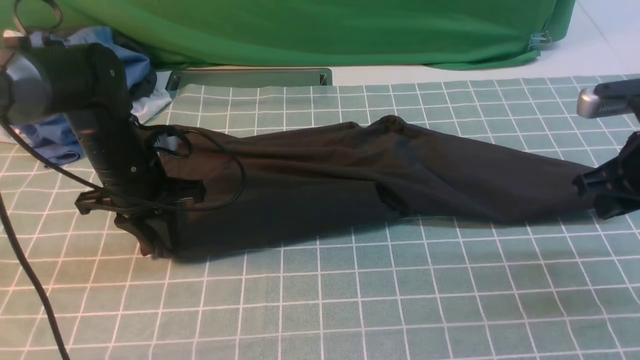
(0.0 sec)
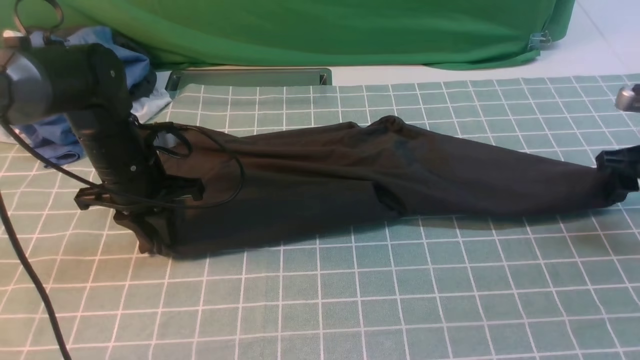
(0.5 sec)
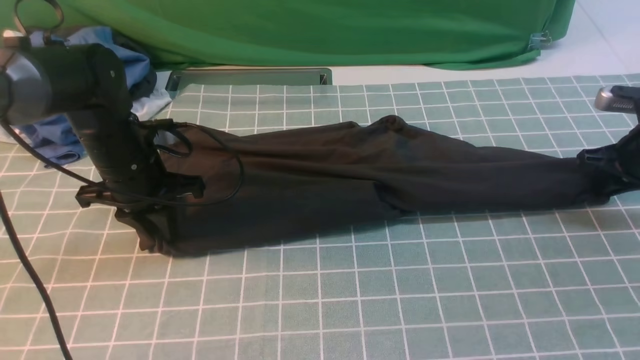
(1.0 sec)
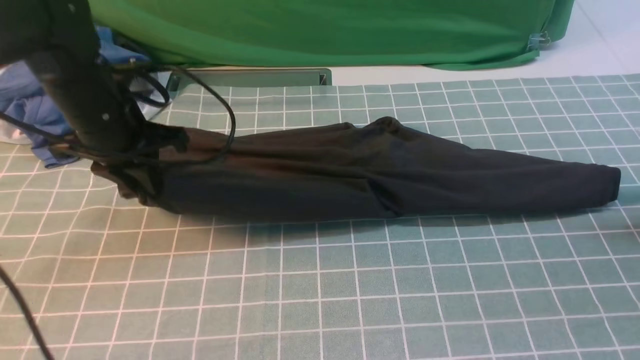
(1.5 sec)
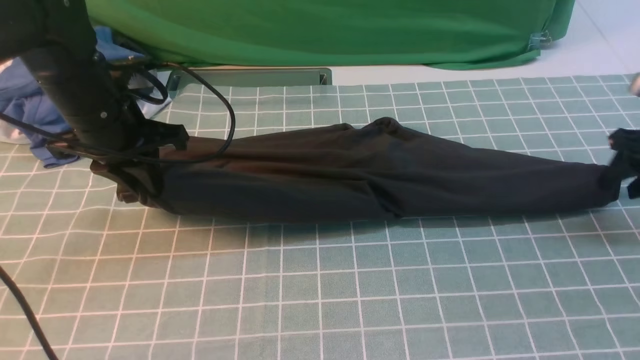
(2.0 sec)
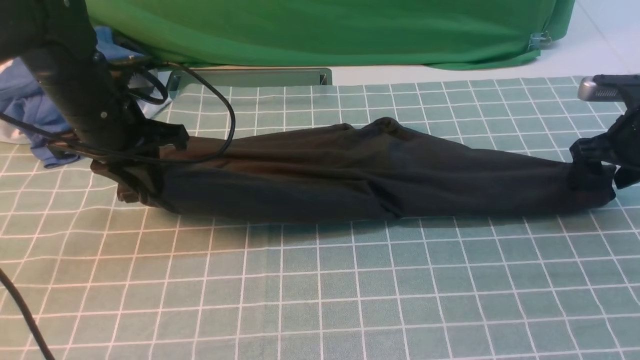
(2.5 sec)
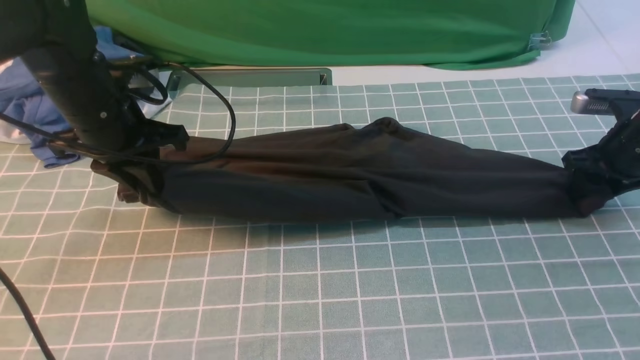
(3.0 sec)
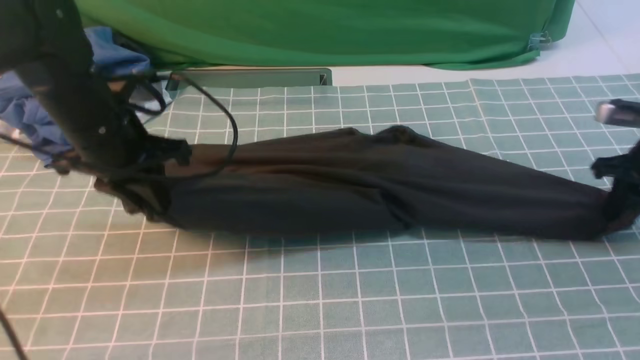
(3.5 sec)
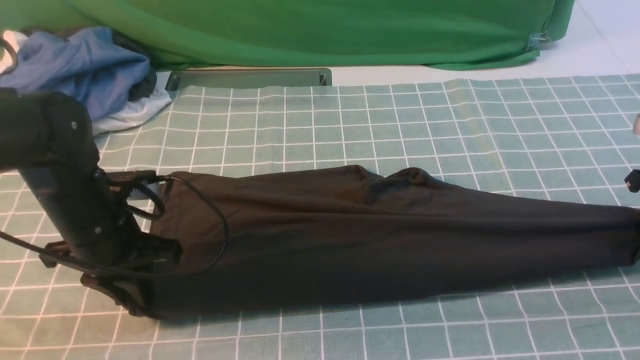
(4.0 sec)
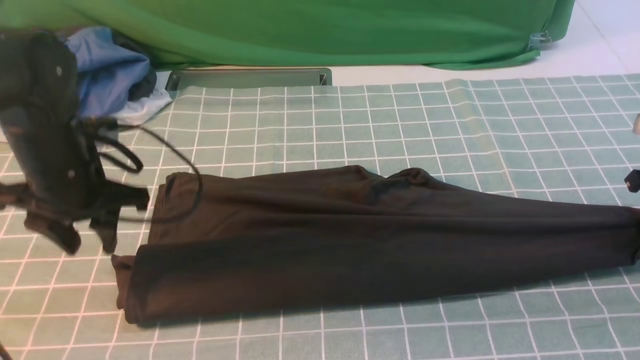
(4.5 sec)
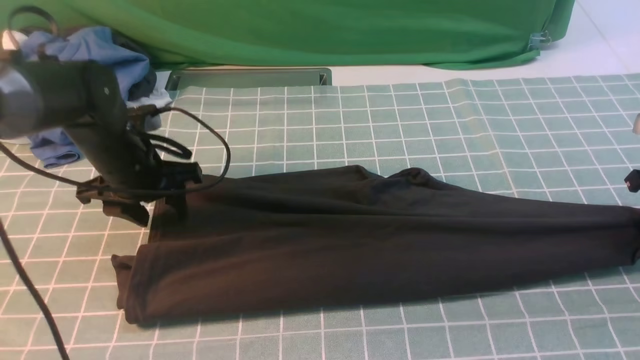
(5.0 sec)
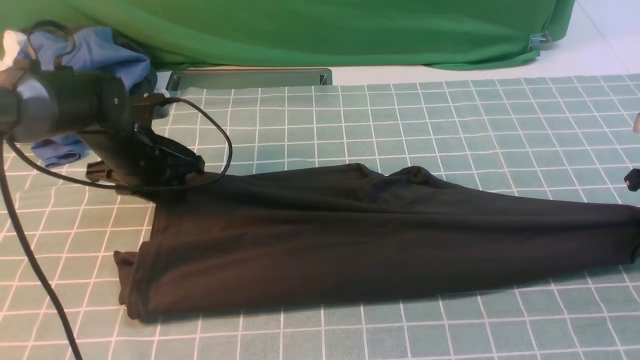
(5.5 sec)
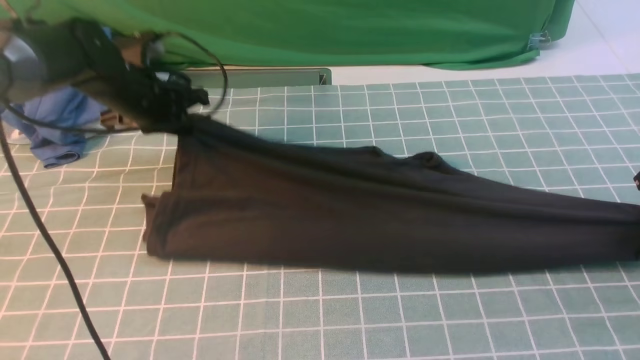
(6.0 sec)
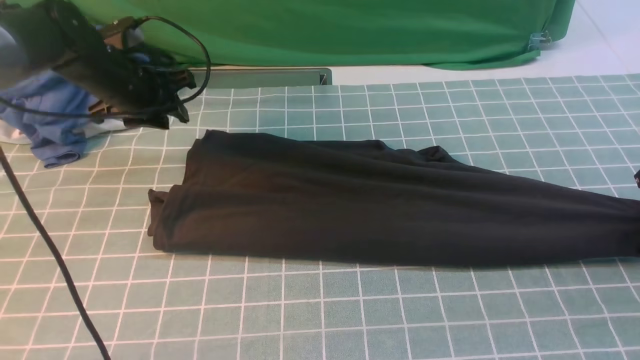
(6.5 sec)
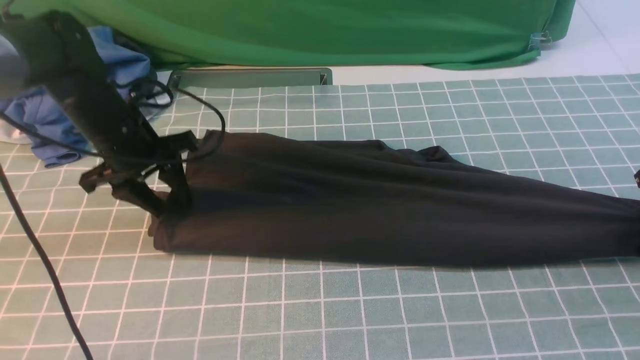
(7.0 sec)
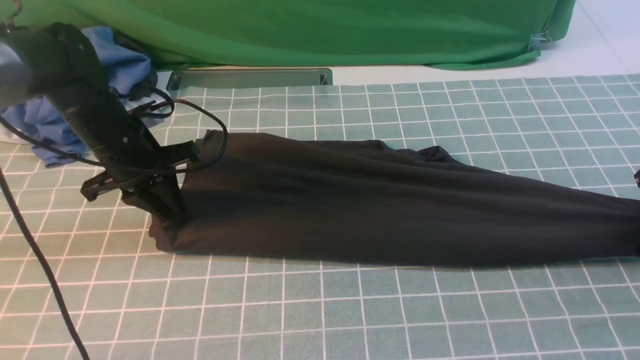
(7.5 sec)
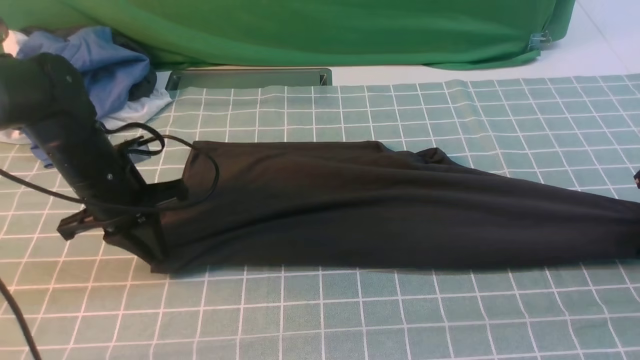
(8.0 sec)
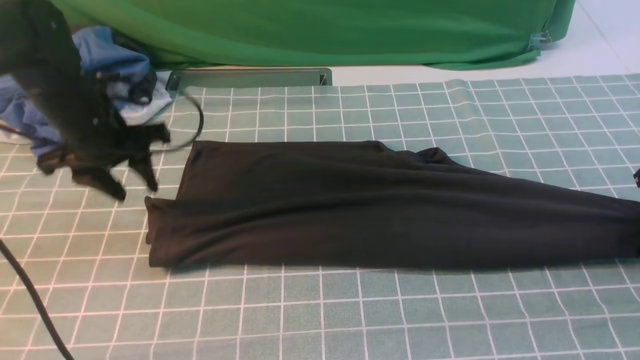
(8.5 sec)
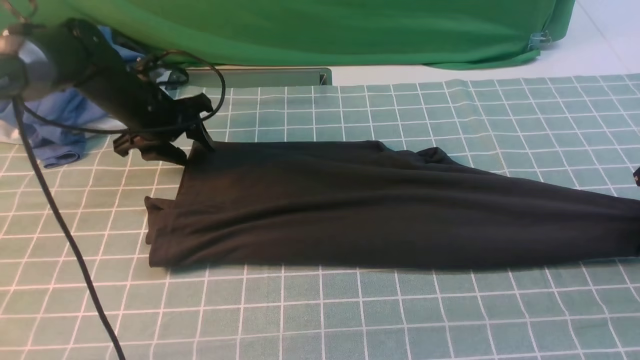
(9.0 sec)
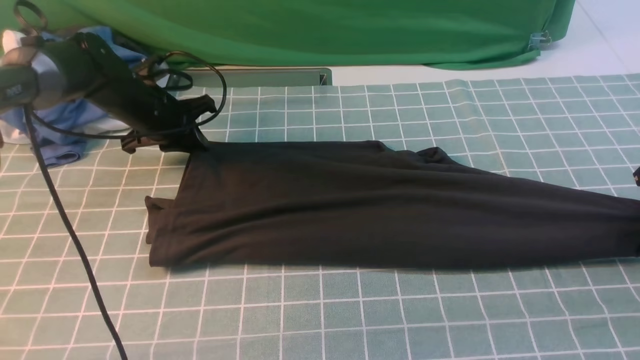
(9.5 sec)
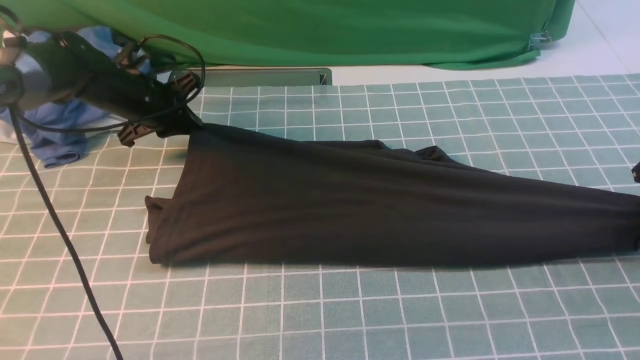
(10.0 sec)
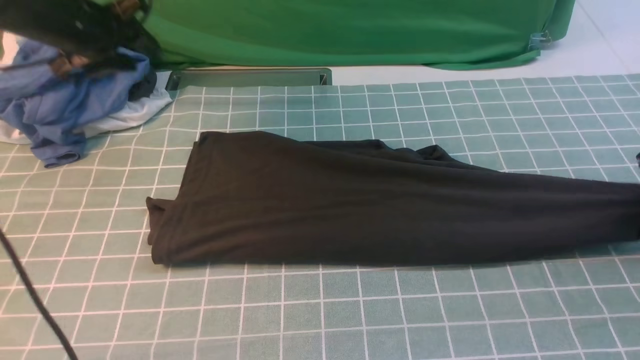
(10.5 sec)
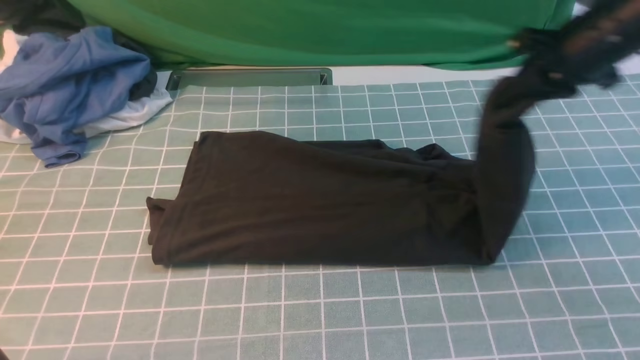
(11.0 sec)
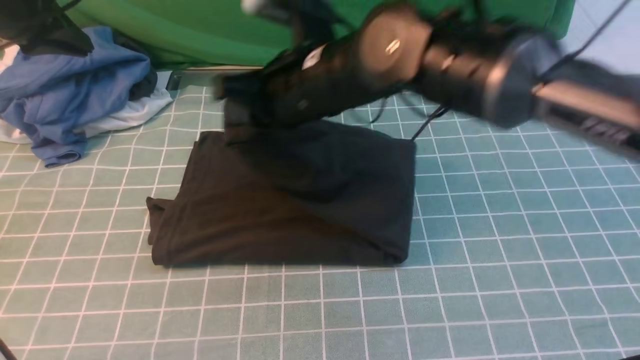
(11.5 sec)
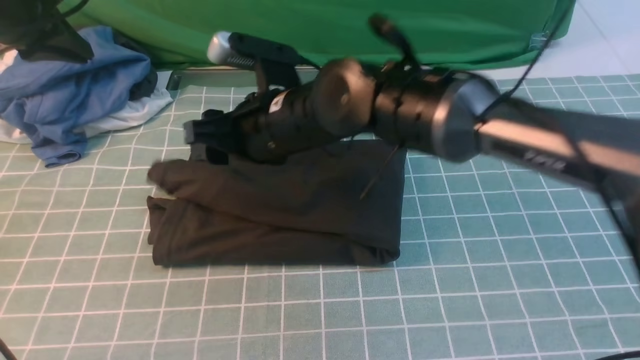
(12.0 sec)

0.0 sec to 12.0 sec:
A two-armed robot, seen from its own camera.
Step, 0.0 sec to 10.0 sec: use the right arm to clamp the right edge of the fabric.
Step, 10.5 sec to 12.0 sec: use the right arm to drag the right edge of the fabric to the left and folds it over the left edge.
0.0 sec to 2.0 sec: The right gripper goes about 15 cm to the right, forward and downward, and opens up; the left gripper heads upward, covering approximately 10 cm.
2.0 sec to 4.0 sec: The right gripper closes. Meanwhile the left gripper shifts about 10 cm backward and downward.
4.0 sec to 6.0 sec: The left gripper goes roughly 15 cm forward, and opens, then closes again.
6.0 sec to 8.0 sec: The left gripper heads backward, covering some 10 cm, and opens, then closes again.
8.0 sec to 10.0 sec: The left gripper moves forward, about 15 cm, and opens and closes again.
10.0 sec to 12.0 sec: The right gripper shifts roughly 40 cm to the left, and opens up. Meanwhile the left gripper moves upward, backward and to the left, approximately 20 cm, and opens, then closes again.

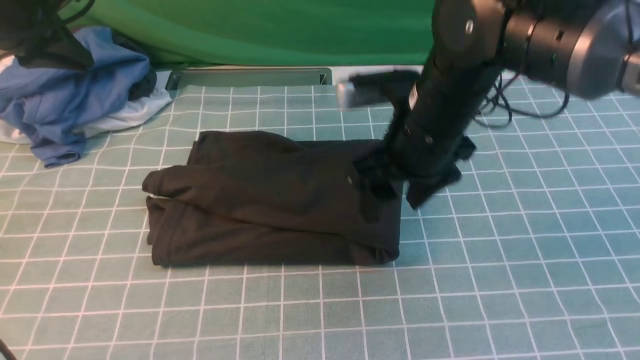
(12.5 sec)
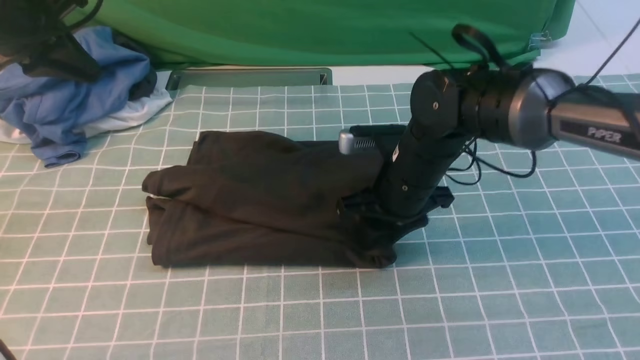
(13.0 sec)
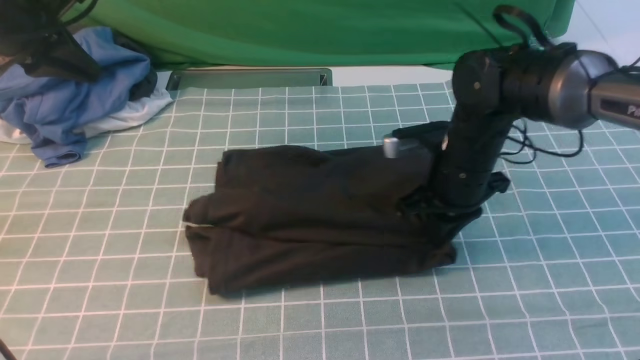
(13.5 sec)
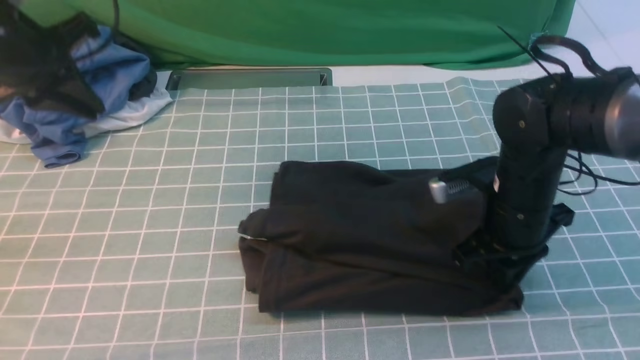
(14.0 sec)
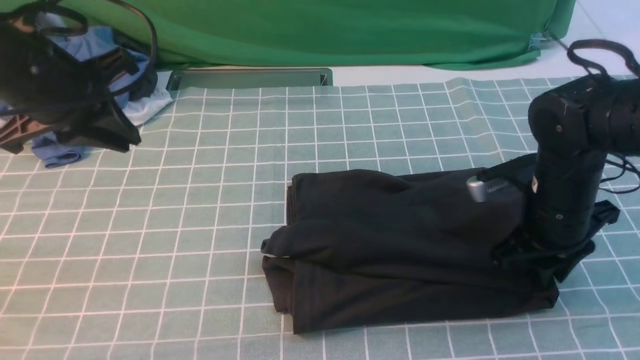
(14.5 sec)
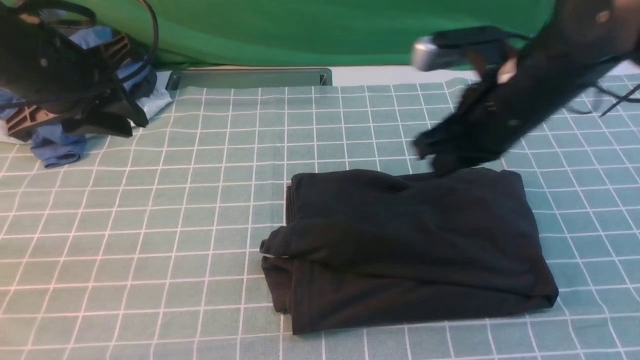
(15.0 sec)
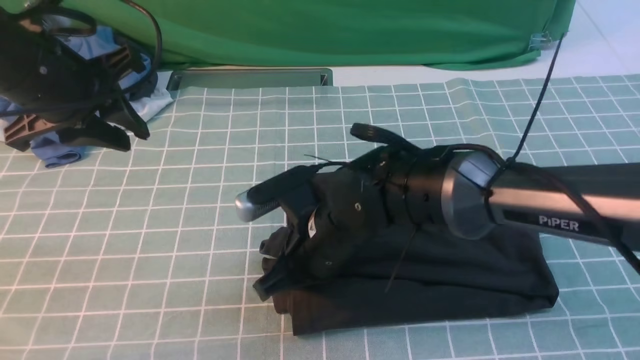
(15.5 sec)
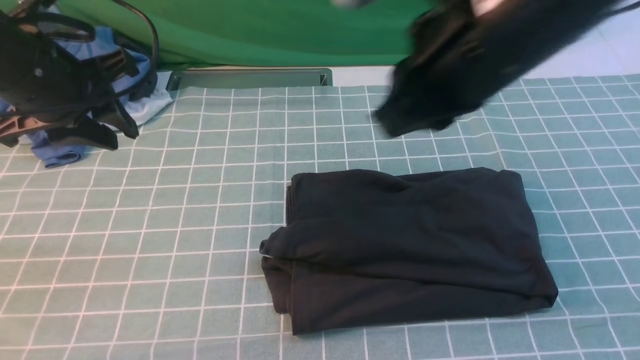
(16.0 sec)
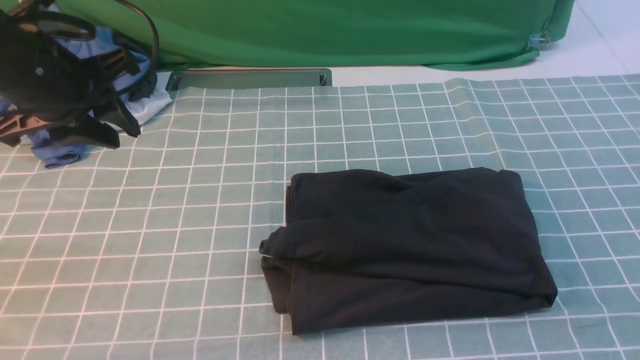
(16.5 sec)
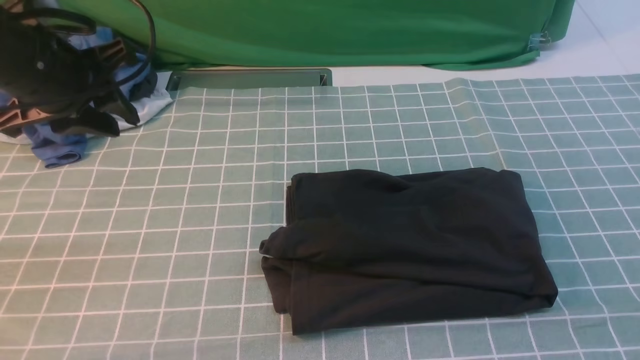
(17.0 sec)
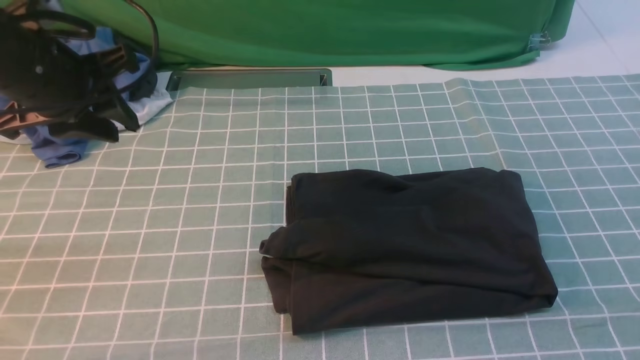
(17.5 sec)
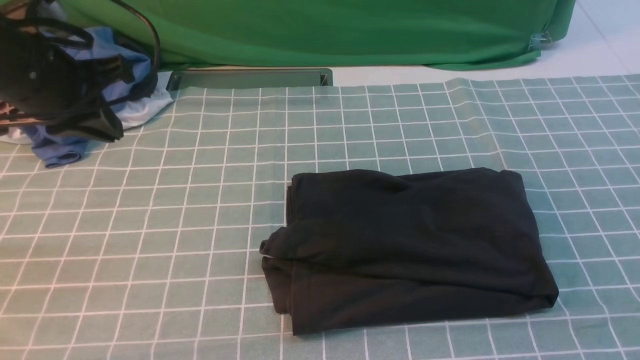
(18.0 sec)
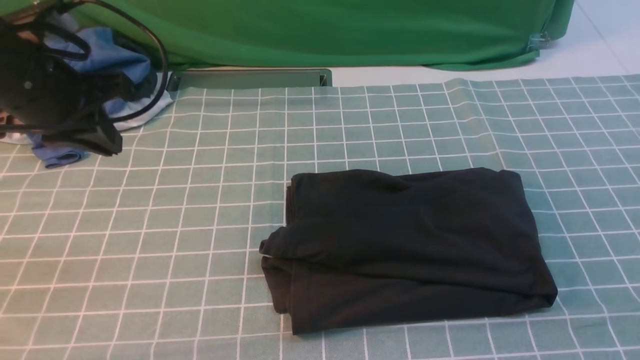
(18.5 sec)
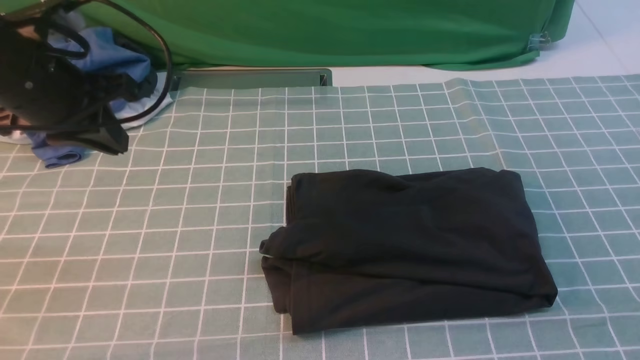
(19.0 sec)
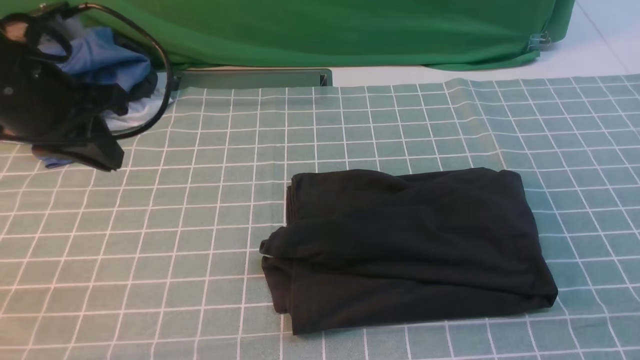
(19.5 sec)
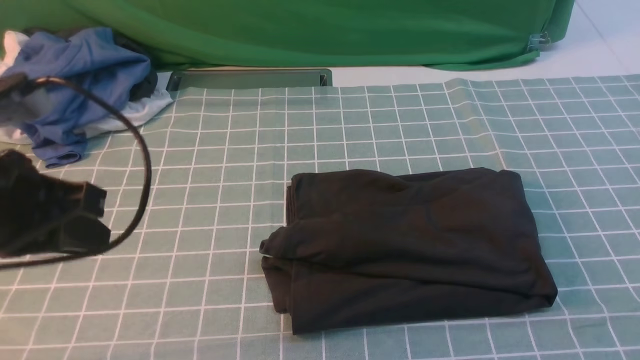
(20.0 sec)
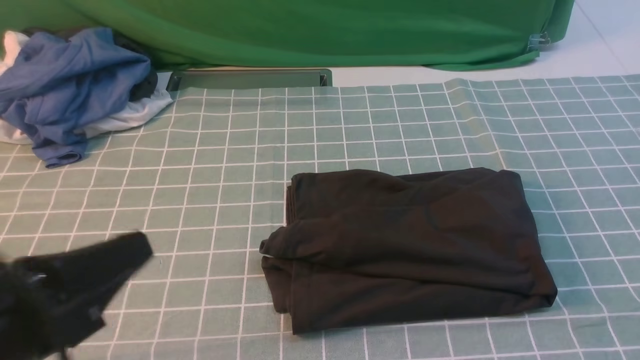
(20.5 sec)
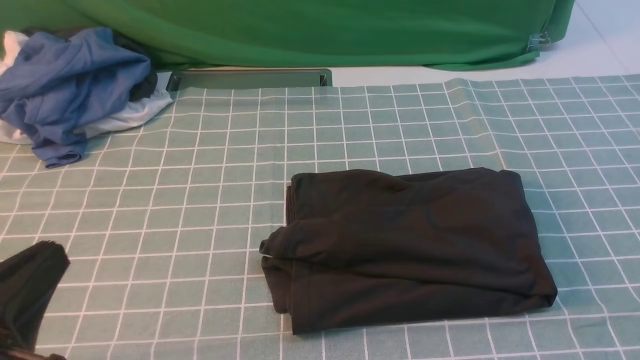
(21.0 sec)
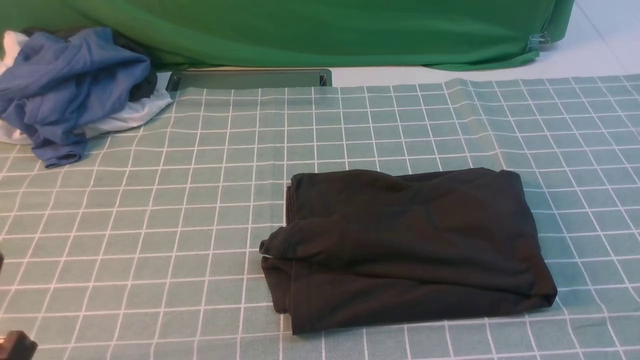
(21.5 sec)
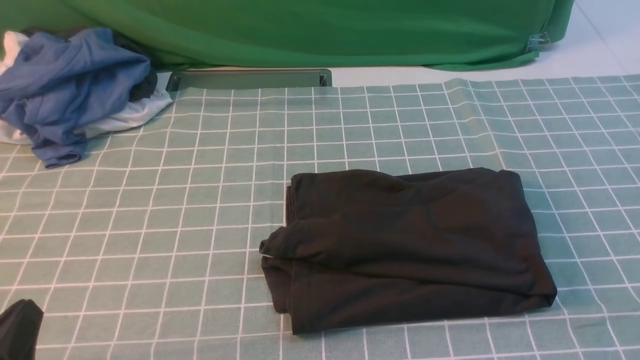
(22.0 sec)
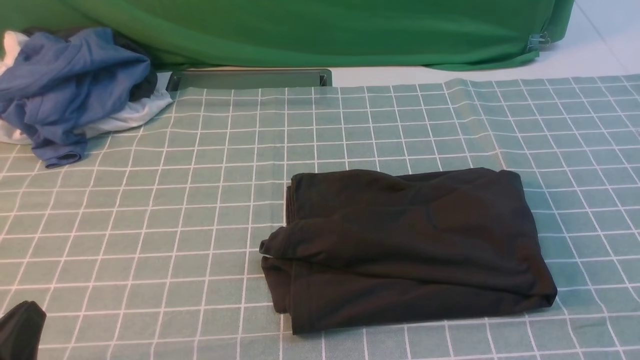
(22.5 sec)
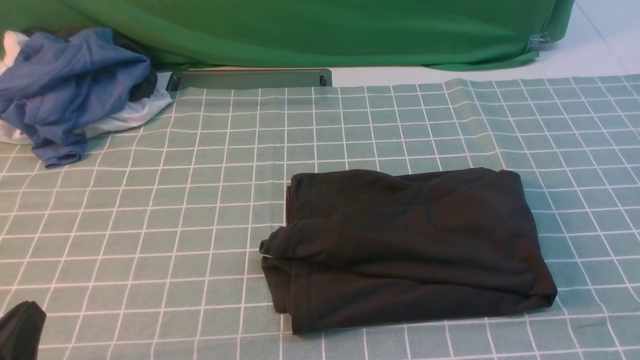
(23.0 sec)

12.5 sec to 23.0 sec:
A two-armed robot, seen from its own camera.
12.5 sec to 14.5 sec: The right gripper goes some 15 cm to the right and downward, and closes its fingers; the left gripper moves backward and to the right, roughly 10 cm.
14.5 sec to 16.5 sec: The right gripper travels backward and upward by about 30 cm, goes to the left and returns, approximately 20 cm each way, and closes its fingers.
16.5 sec to 19.0 sec: The left gripper closes.
19.0 sec to 21.0 sec: The left gripper travels backward by approximately 25 cm.
21.0 sec to 23.0 sec: The left gripper goes roughly 10 cm downward.
